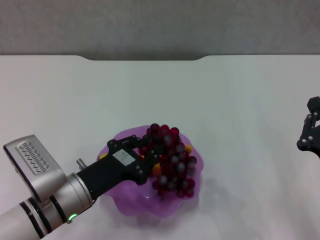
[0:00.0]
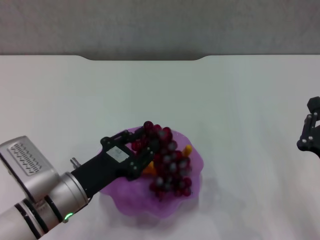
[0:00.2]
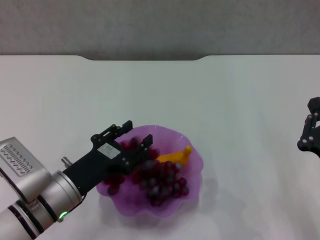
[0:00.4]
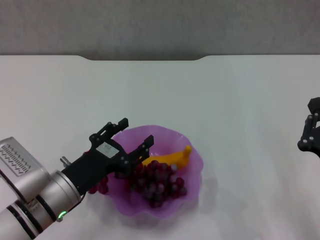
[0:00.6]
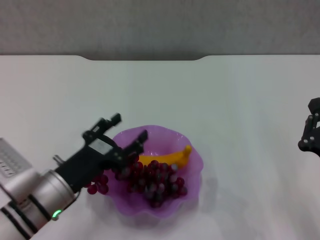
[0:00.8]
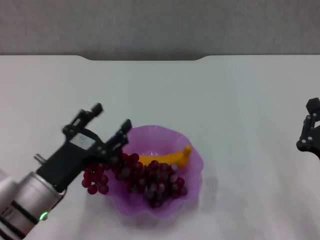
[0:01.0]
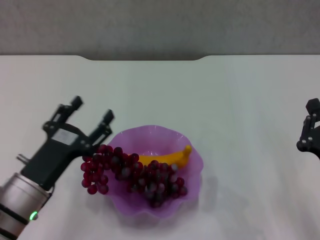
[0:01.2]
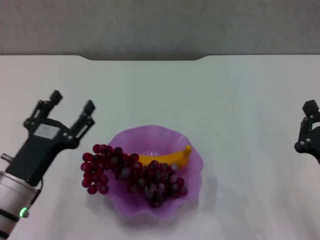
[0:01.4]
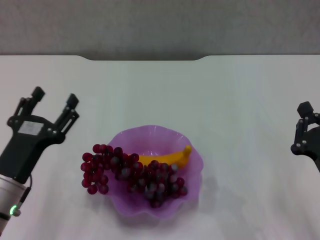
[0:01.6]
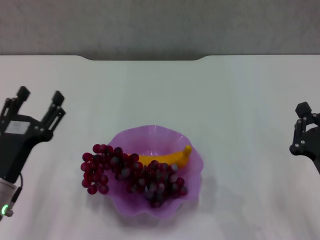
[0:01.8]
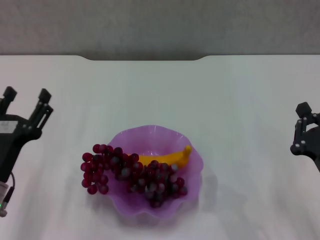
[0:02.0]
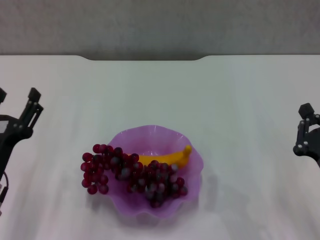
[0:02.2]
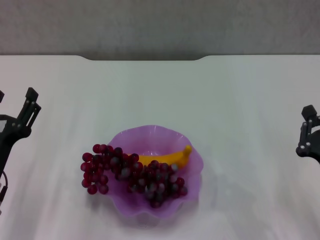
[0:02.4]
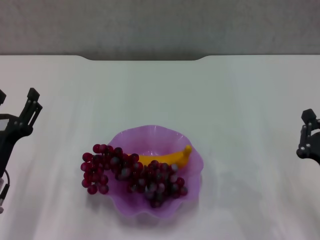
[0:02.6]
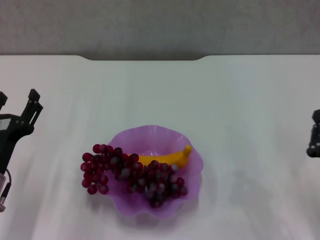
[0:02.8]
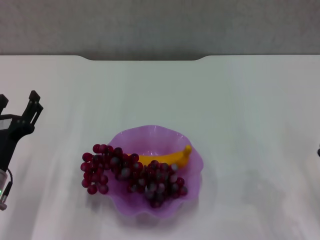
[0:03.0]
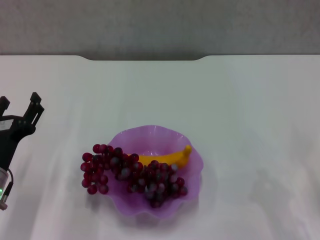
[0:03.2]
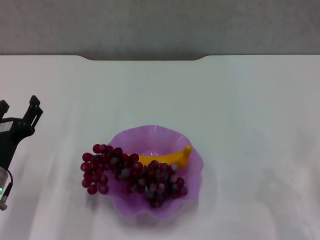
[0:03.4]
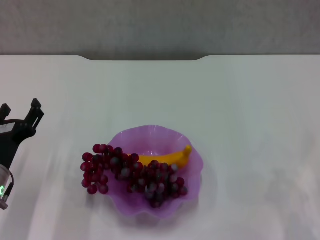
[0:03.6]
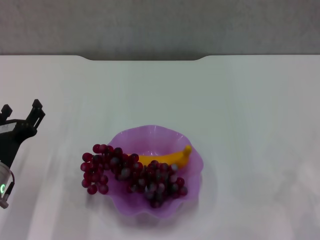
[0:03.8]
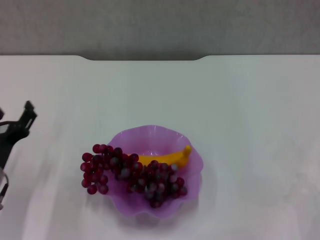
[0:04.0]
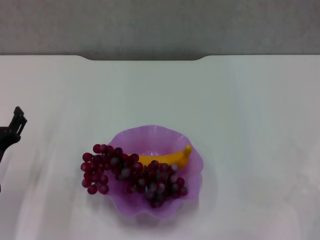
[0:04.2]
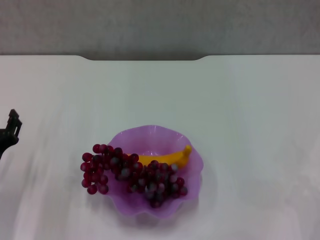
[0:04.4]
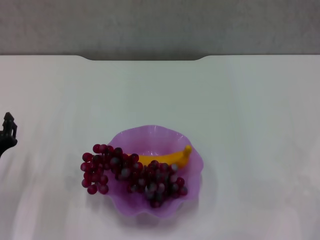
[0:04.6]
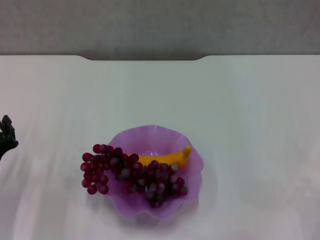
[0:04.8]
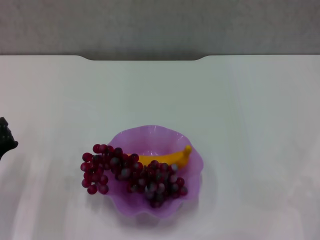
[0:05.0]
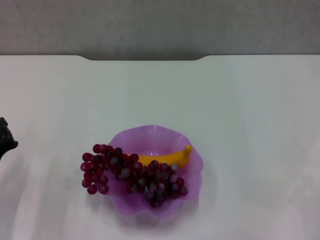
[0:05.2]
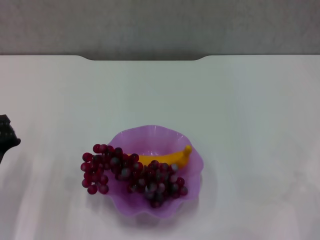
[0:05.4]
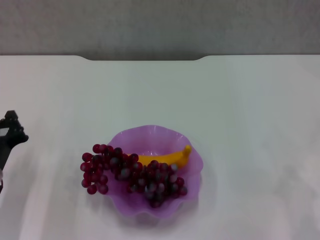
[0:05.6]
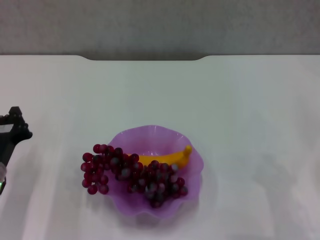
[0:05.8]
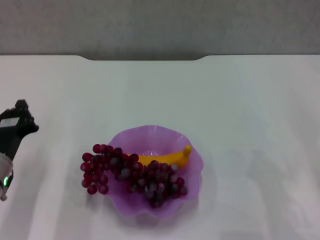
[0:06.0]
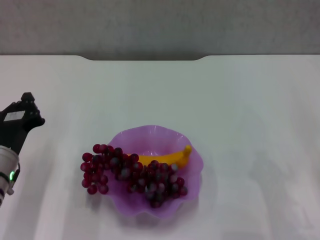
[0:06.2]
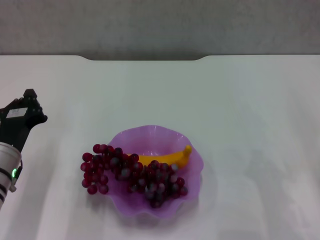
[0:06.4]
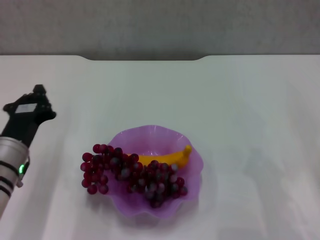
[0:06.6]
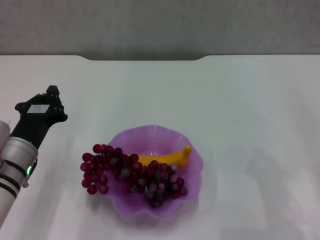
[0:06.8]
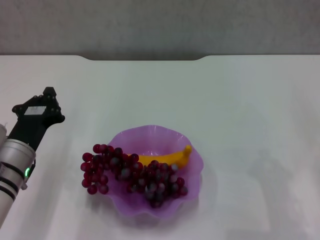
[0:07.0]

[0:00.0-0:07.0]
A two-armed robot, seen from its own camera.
0:00.0 to 0:01.4: The left gripper travels to the left by some 5 cm, and opens.
0:01.4 to 0:02.8: There are only small adjustments of the grippers.
0:04.2 to 0:05.6: The left gripper closes its fingers.
0:05.6 to 0:07.0: The left gripper changes place by about 5 cm.
